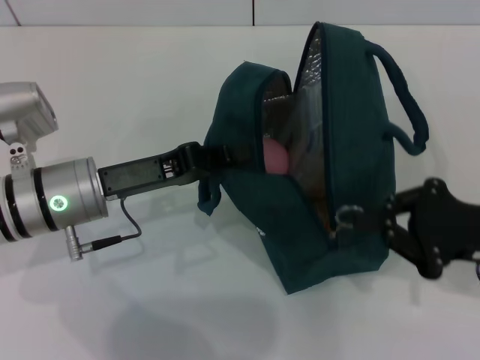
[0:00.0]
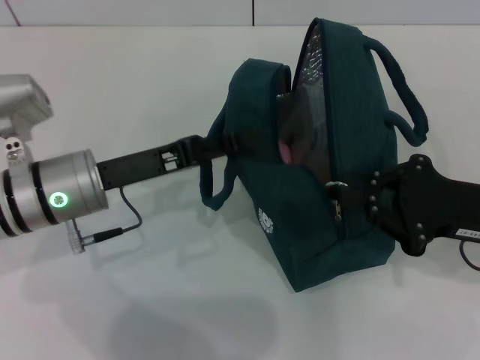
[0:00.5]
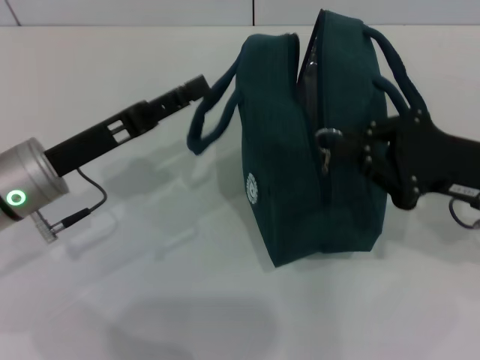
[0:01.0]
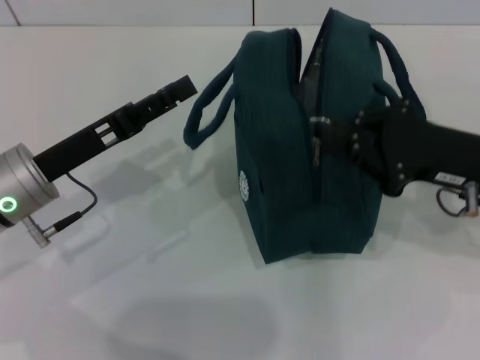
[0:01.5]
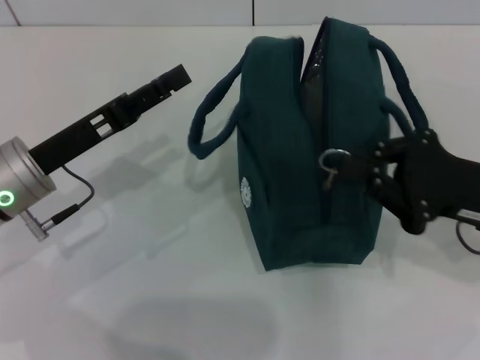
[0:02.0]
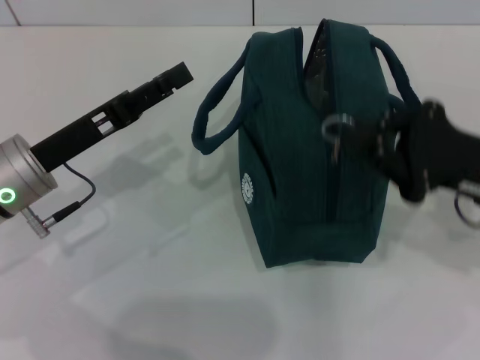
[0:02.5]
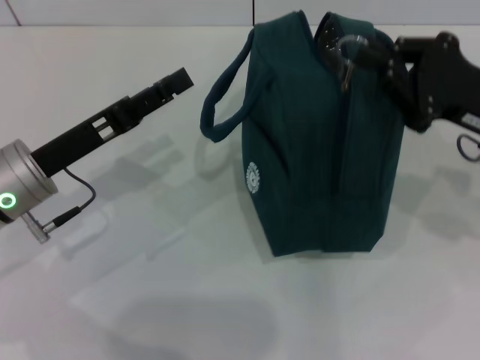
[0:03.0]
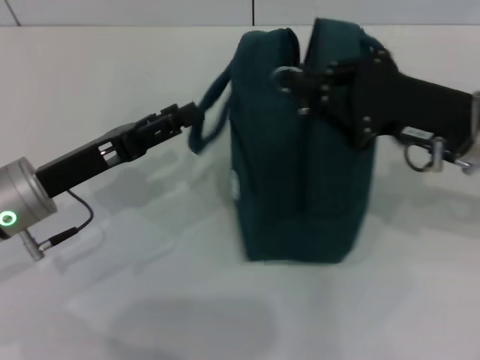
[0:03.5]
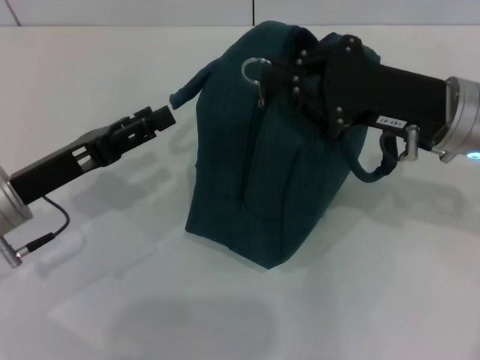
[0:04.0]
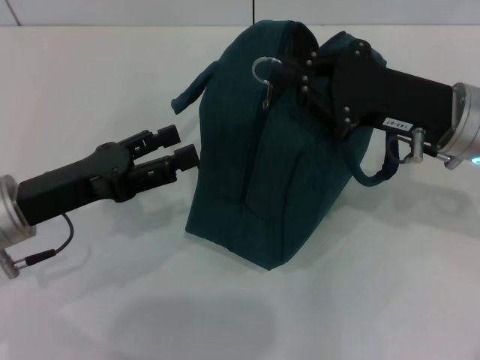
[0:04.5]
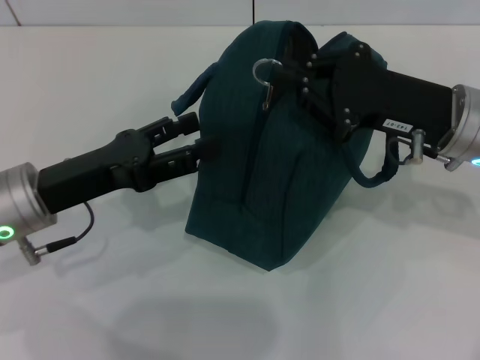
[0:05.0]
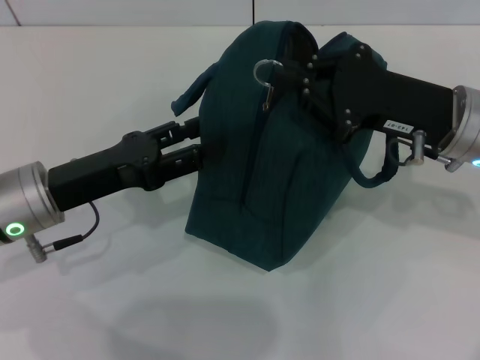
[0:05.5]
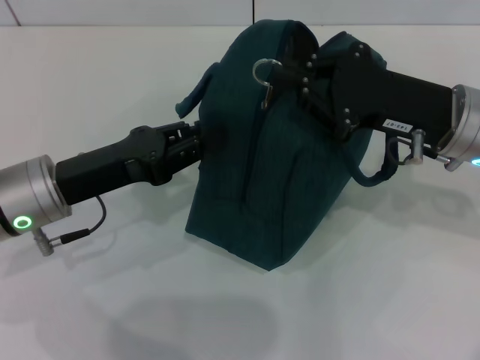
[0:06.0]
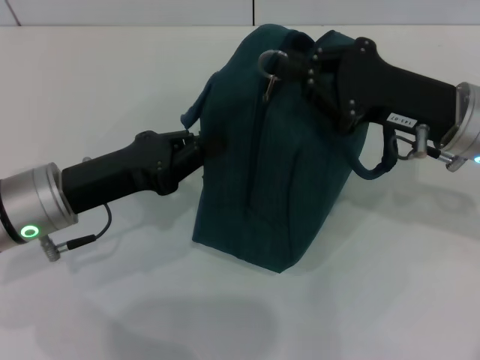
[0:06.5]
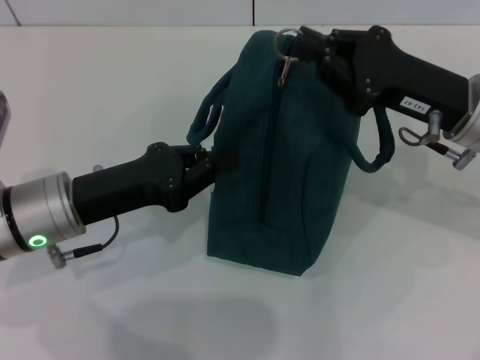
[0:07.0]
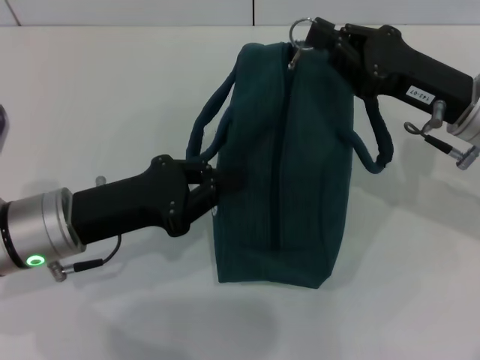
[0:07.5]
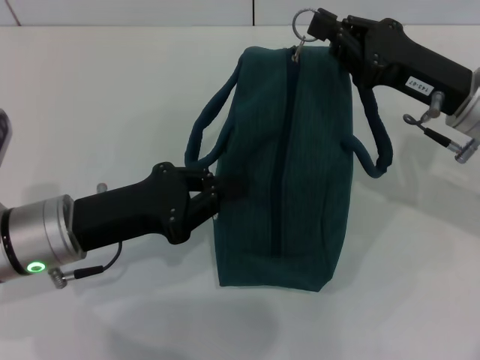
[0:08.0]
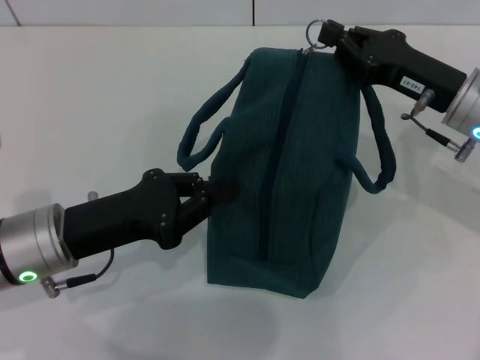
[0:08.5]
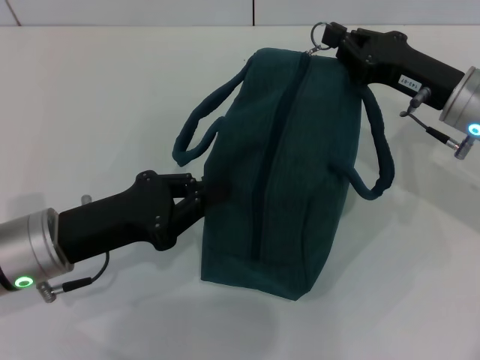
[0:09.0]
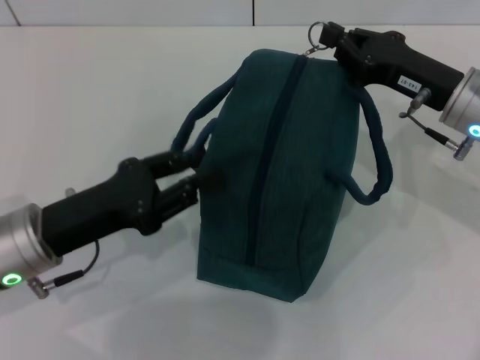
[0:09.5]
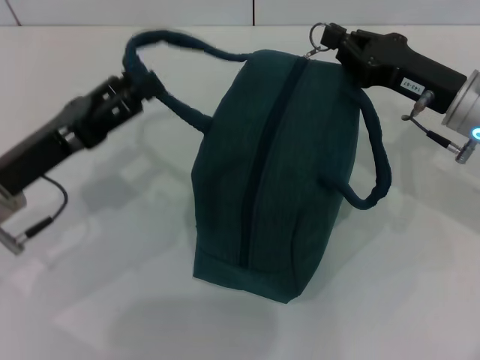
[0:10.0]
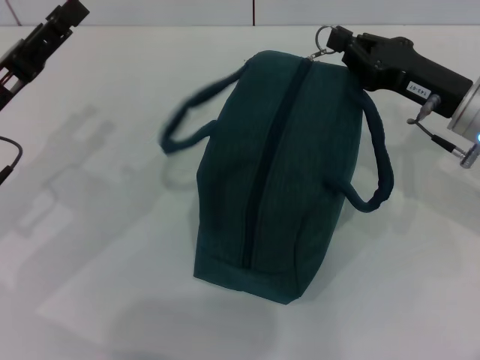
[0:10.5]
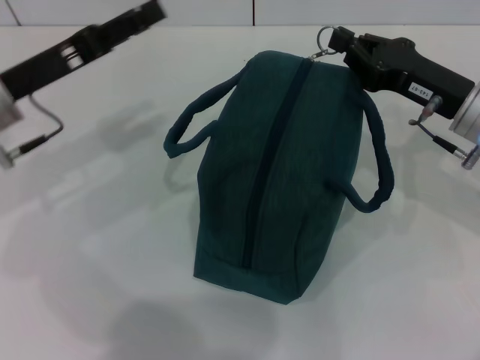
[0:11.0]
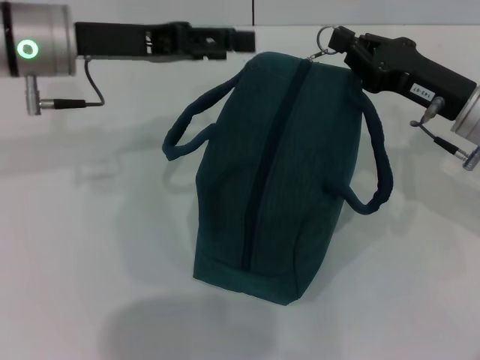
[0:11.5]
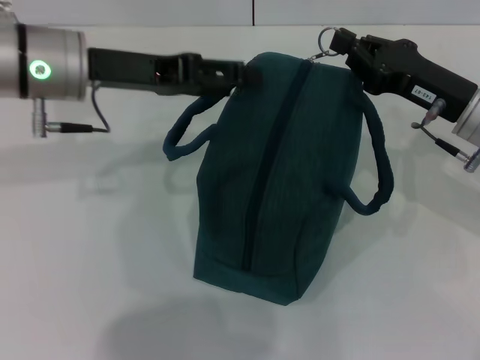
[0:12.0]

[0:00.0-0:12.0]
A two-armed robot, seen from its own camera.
0:00.0 to 0:02.0: The left gripper opens.
0:02.0 to 0:04.0: The right gripper heads to the left and forward, covering roughly 10 cm.
0:04.0 to 0:06.0: The grippers move only a little.
0:06.0 to 0:08.0: The left gripper closes up.
0:08.0 to 0:10.0: The left gripper opens.
0:10.0 to 0:12.0: The left gripper heads forward, upward and to the right, covering approximately 15 cm.

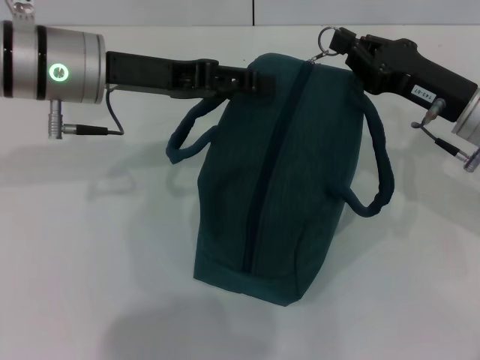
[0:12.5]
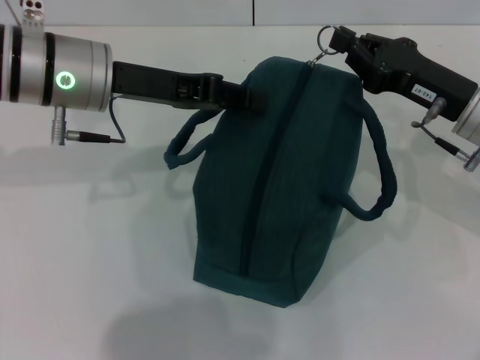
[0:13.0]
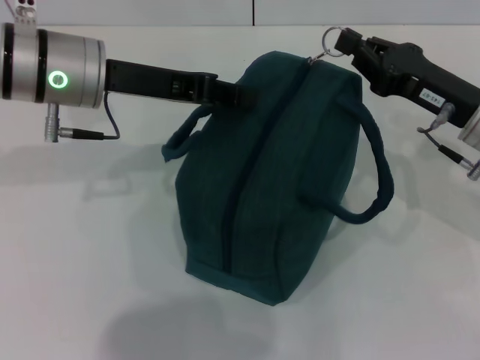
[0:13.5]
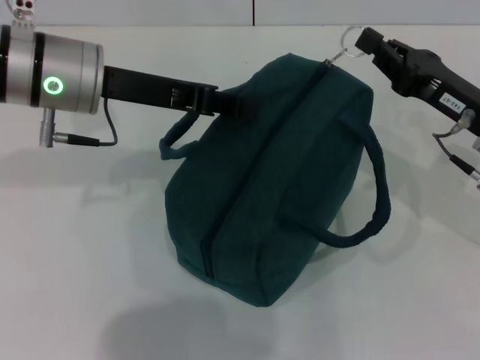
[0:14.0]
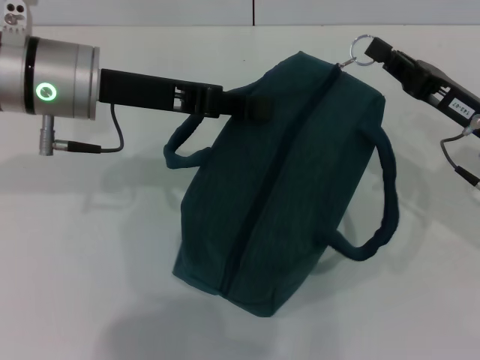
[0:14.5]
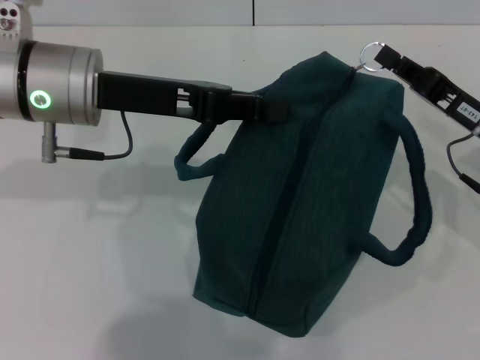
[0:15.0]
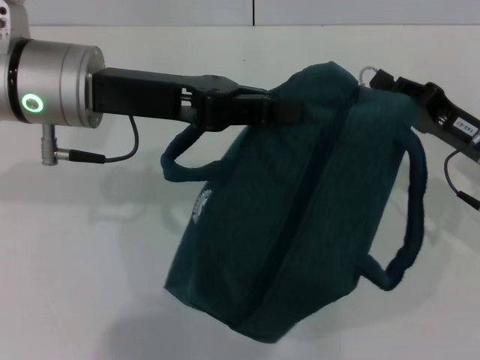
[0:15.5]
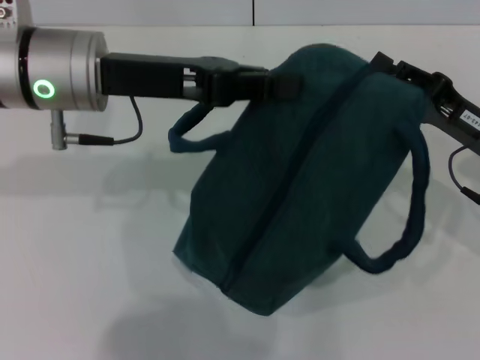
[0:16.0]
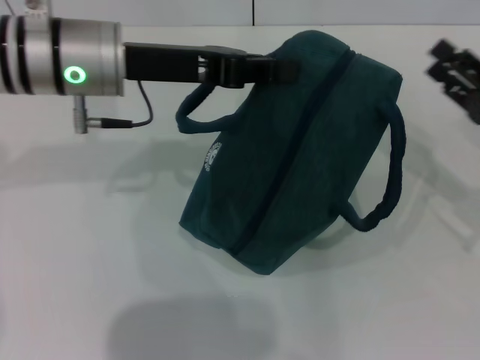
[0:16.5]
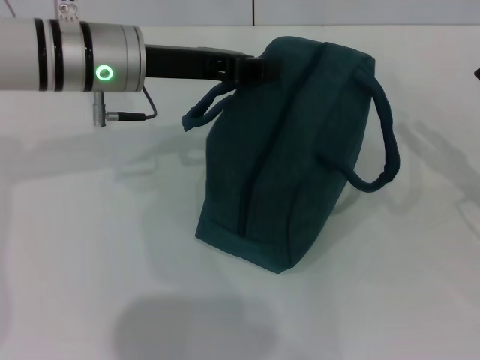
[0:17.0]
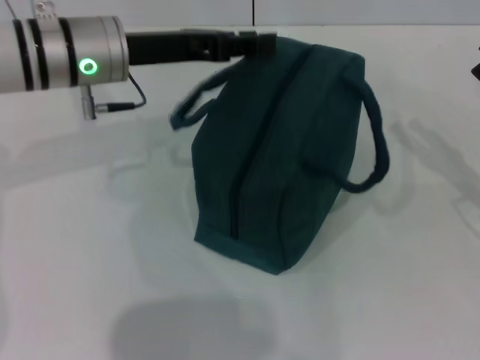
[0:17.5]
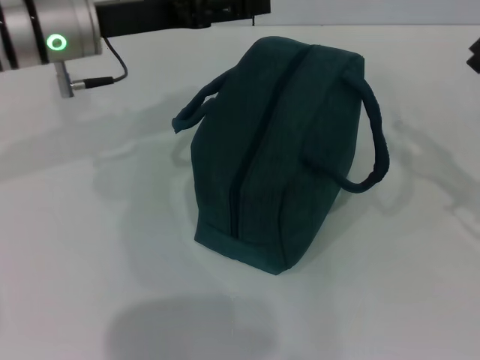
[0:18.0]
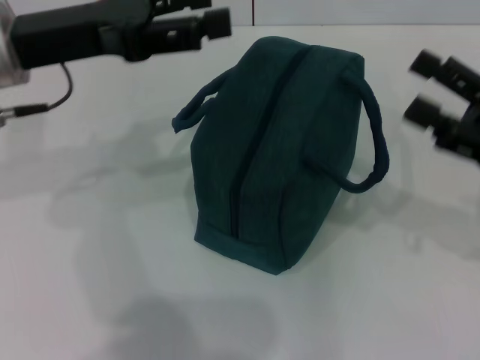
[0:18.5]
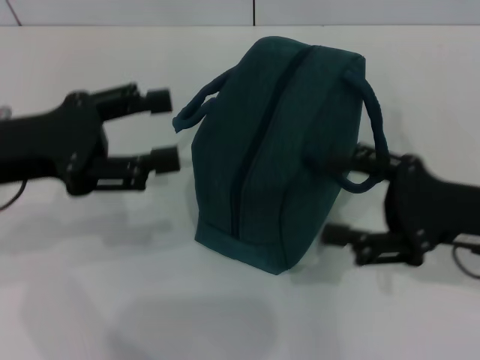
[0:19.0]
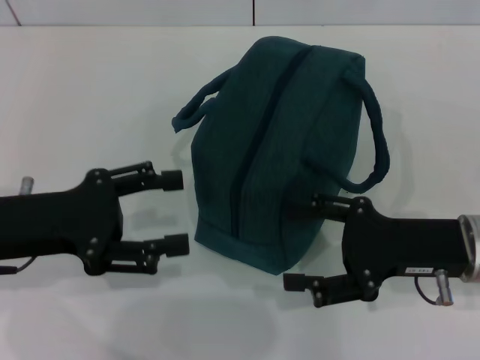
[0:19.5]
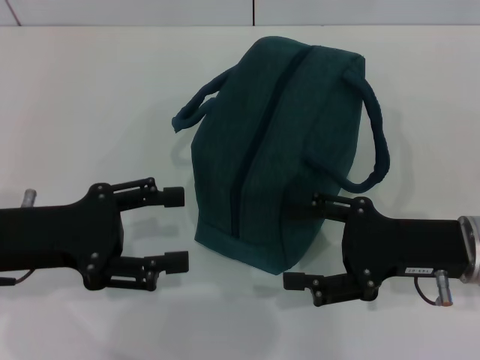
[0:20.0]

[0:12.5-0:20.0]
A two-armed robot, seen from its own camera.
Step, 0:12.5 to 0:16.0: Zip up the lunch bag with your right hand.
Step, 0:16.5 to 0:17.5: Hold the lunch bag with your left hand.
0:12.5 to 0:14.5: The left gripper closes up.
0:14.5 to 0:16.5: The right gripper shifts about 5 cm to the right, and opens.
0:16.5 to 0:18.0: The left gripper opens.
0:18.0 to 0:20.0: The right gripper travels to the left by about 10 cm; the left gripper shifts roughly 20 cm backward, to the left and downward.

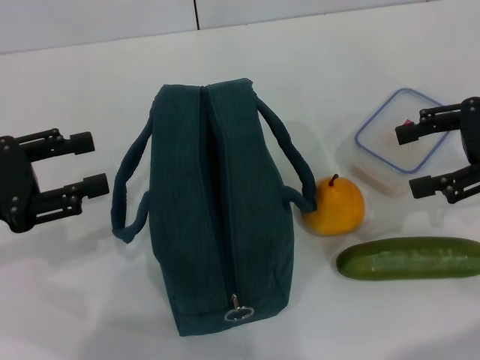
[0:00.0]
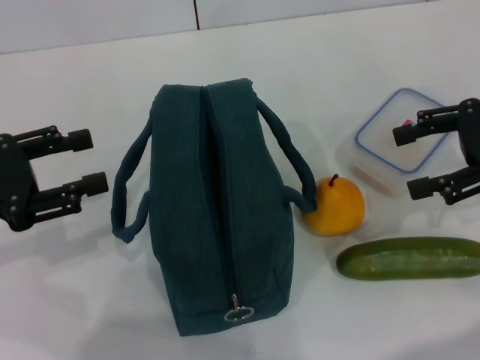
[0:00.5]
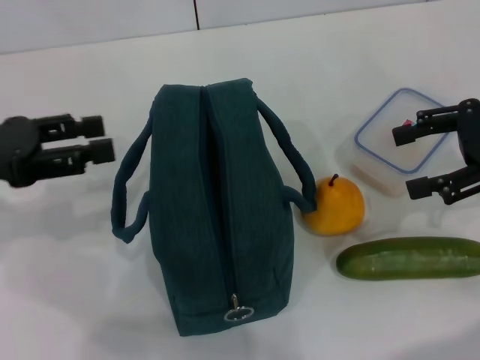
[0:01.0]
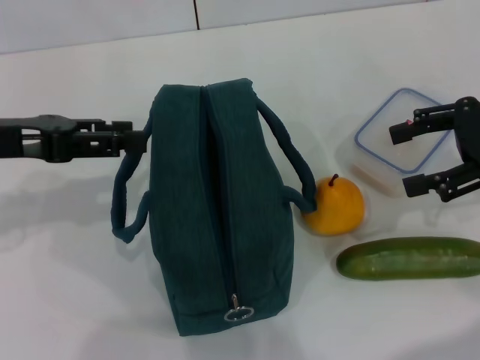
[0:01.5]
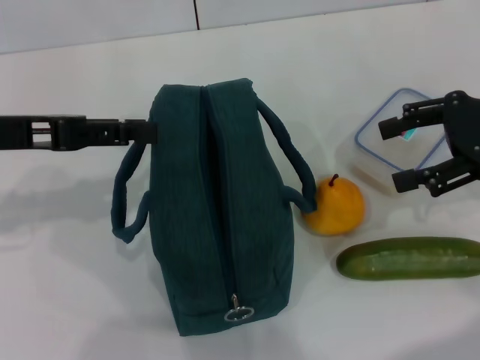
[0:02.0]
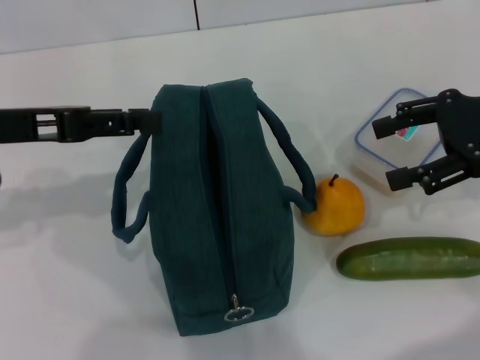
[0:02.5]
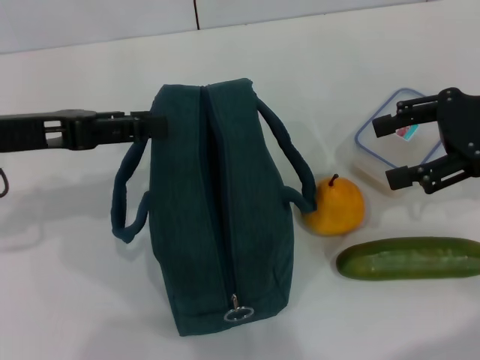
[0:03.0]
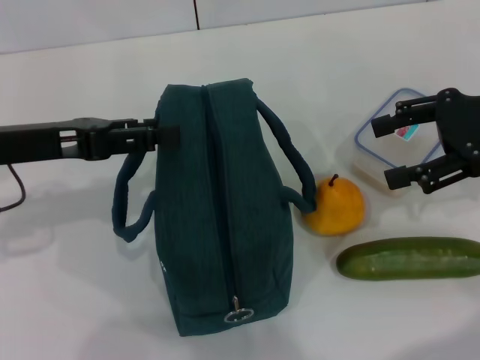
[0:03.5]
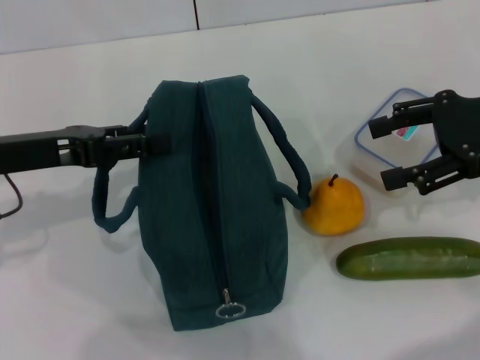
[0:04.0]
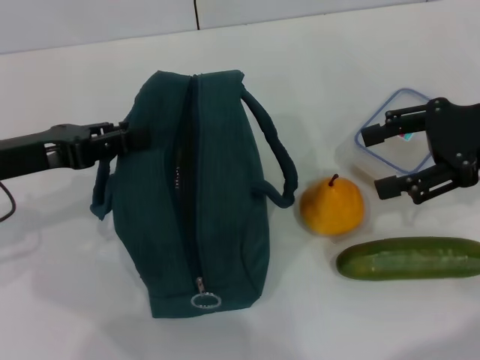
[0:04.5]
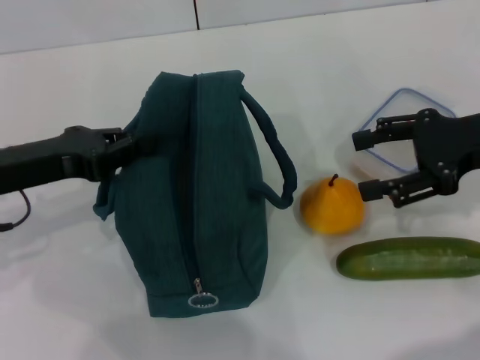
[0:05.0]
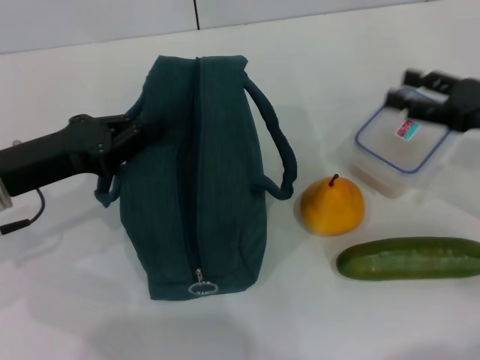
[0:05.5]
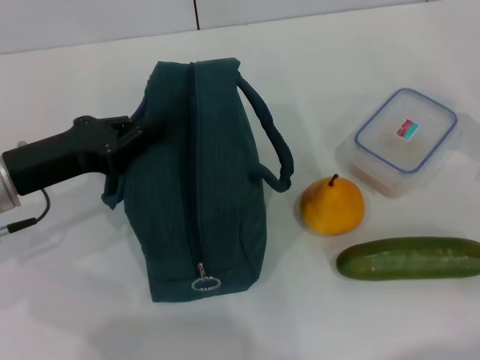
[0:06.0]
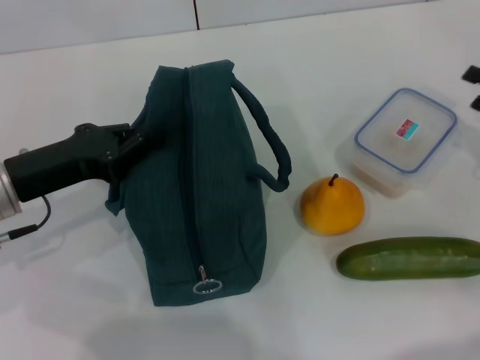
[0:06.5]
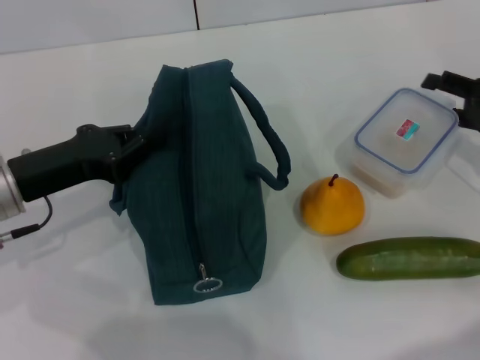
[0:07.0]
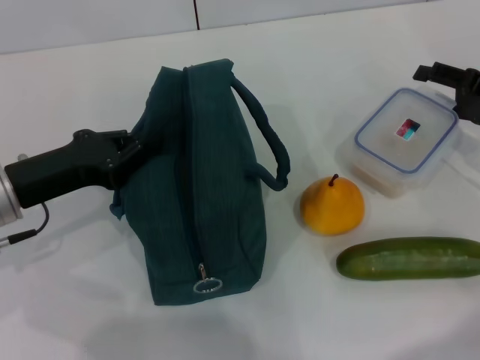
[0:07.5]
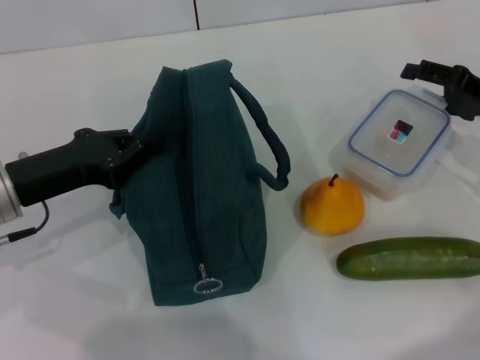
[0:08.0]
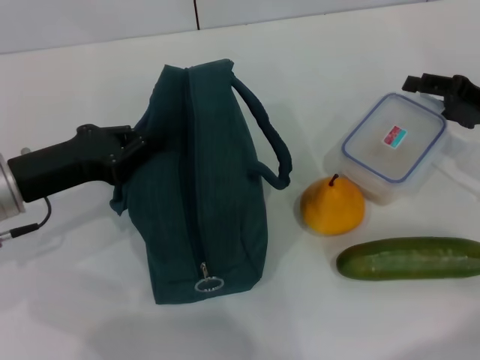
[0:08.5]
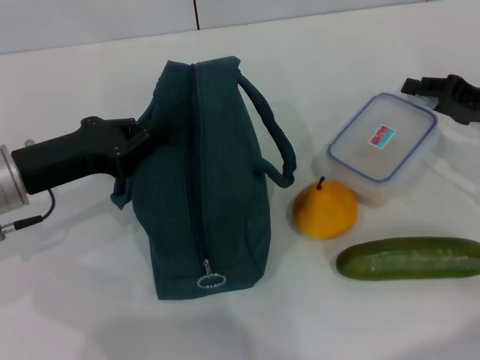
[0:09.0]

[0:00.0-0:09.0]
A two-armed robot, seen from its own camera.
Step, 0:00.0 to 0:05.5: Hold the lunch bag with your left hand.
0:00.0 to 0:02.0: The left gripper ends up some 10 cm from where it was.
0:02.0 to 0:04.5: The grippers stay close to where they were, moving slightly.
0:04.5 to 0:07.0: The right gripper moves downward and to the right, approximately 15 cm; the left gripper closes up.
0:07.0 to 0:09.0: The right gripper closes.
